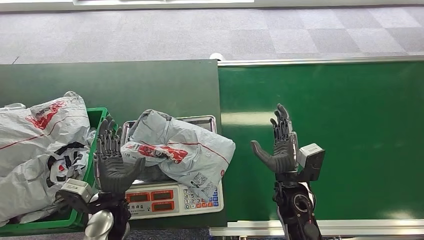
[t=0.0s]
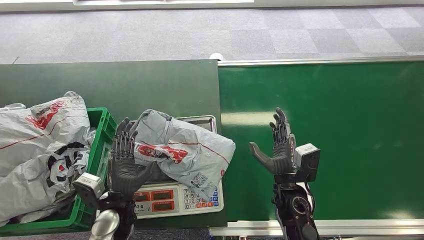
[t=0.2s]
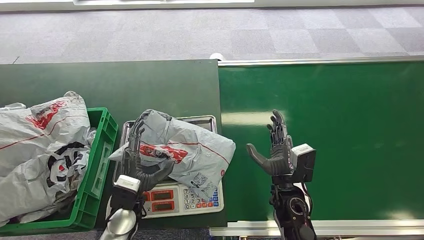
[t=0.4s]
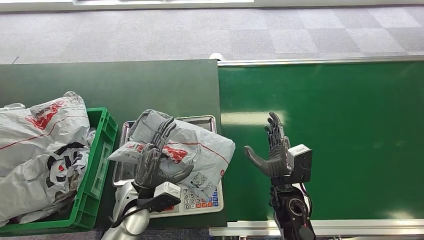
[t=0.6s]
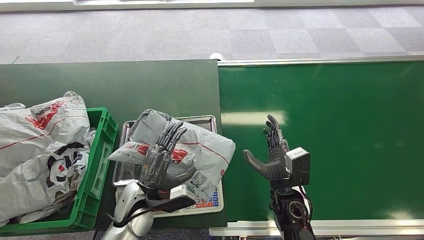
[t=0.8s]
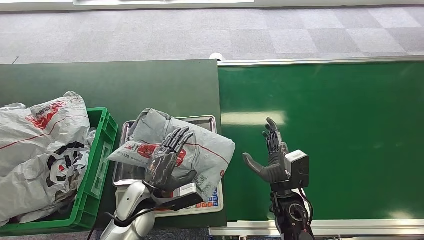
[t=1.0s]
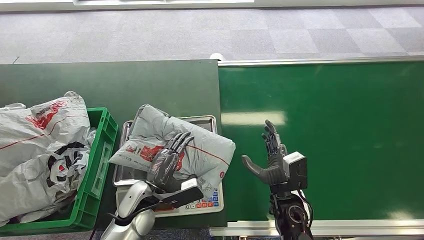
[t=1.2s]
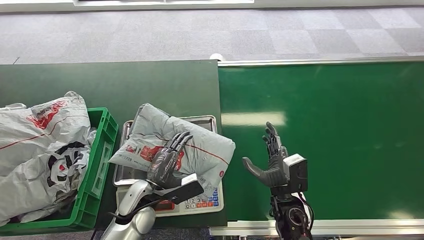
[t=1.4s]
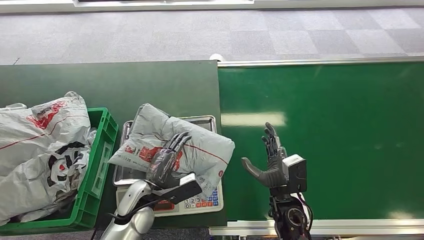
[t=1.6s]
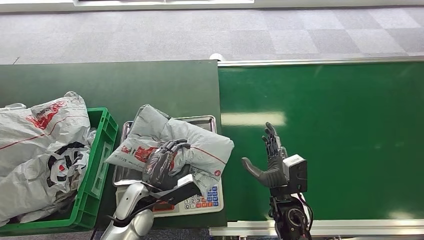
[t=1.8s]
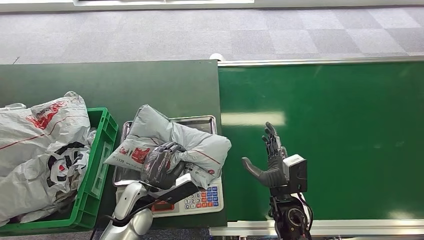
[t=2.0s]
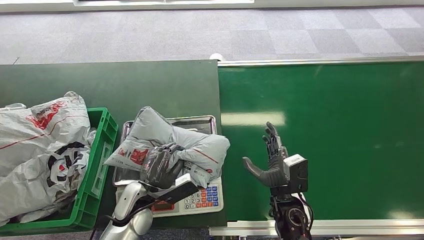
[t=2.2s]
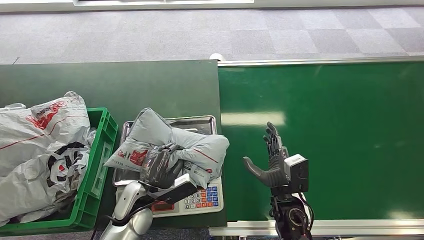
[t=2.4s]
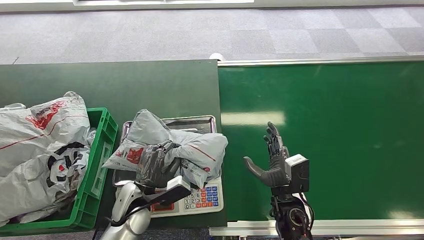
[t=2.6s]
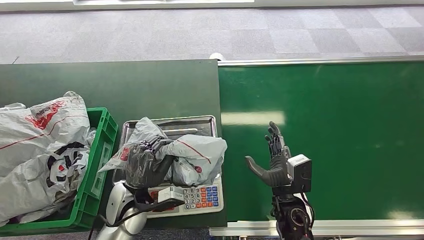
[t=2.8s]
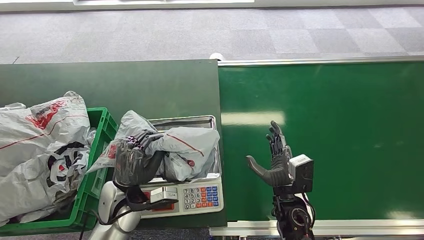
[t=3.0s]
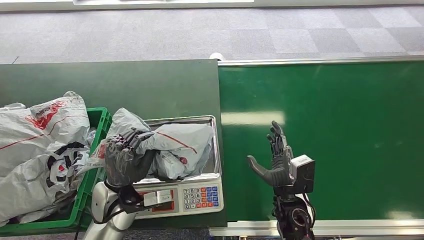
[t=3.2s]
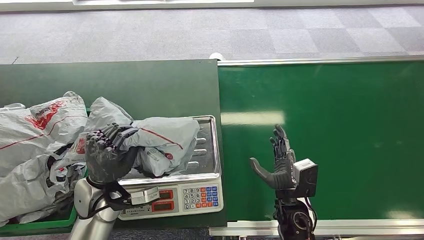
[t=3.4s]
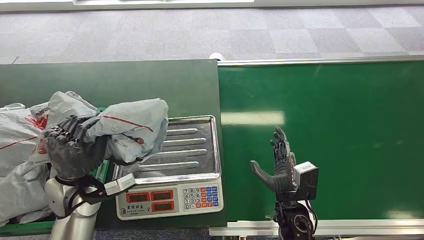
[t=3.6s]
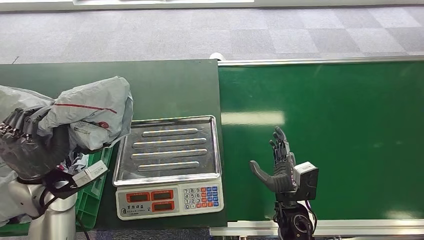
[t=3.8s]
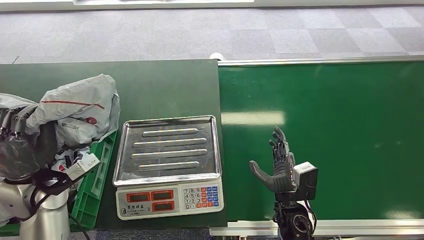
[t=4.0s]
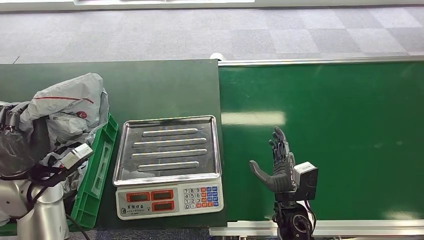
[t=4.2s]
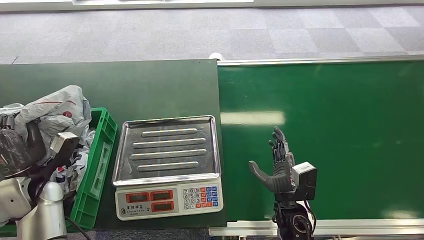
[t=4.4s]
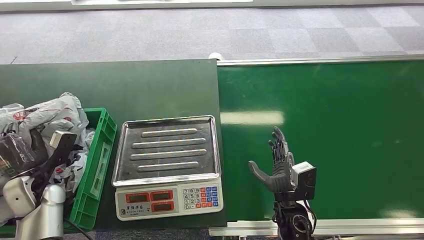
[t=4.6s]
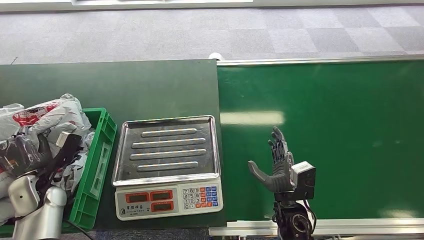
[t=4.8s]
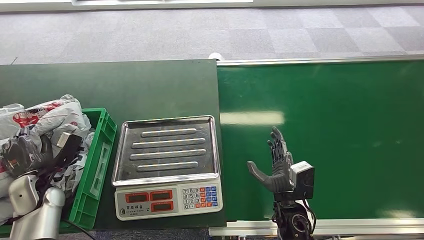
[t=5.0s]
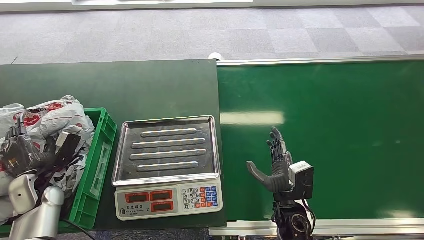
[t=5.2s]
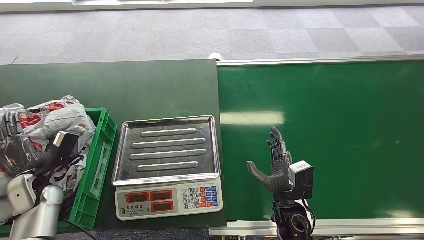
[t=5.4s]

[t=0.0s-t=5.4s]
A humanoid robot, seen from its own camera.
Step, t=2.8s to t=3.4s: Pick up the package from the inbound machine.
Step, t=4.4s to t=5.4s: Place the package into the parcel locker.
t=0.0s to t=1.4s: The left hand travels to the right by roughly 5 cm.
t=4.0s to t=5.4s: The left hand moves downward and to the left, approximately 15 cm.
